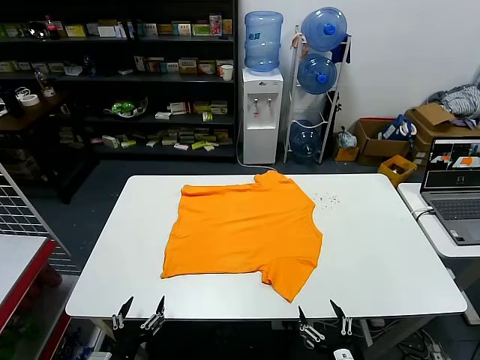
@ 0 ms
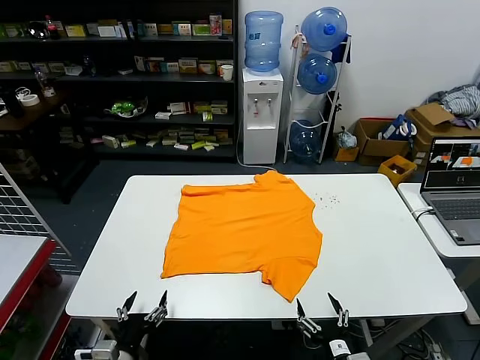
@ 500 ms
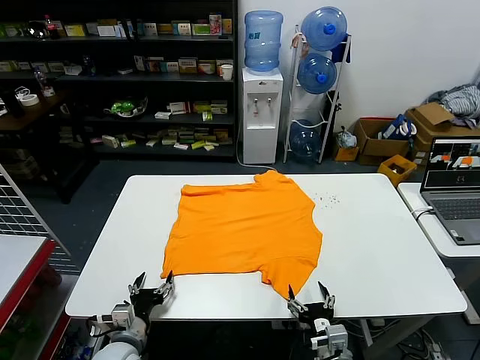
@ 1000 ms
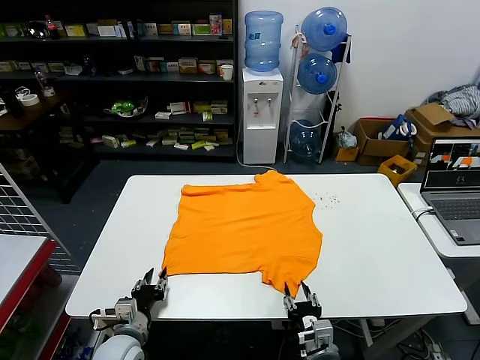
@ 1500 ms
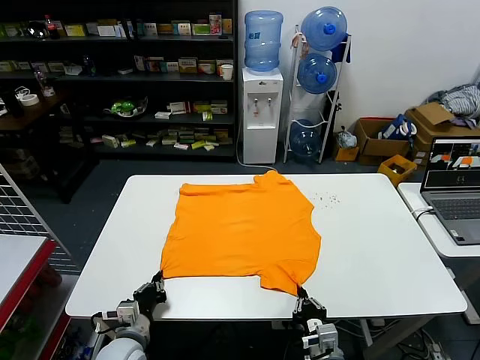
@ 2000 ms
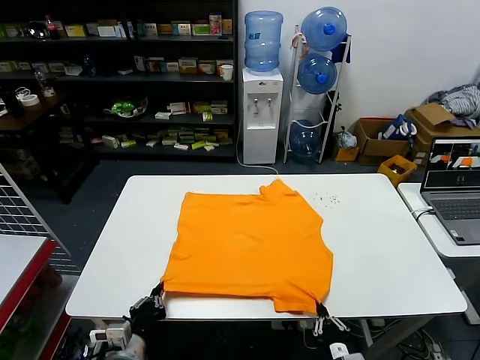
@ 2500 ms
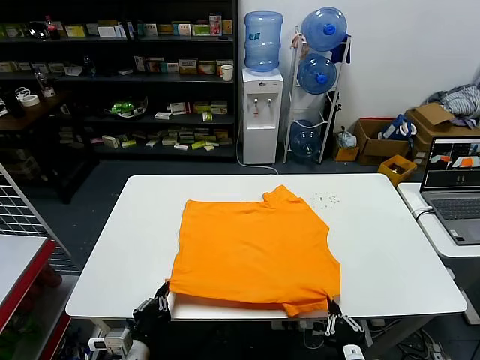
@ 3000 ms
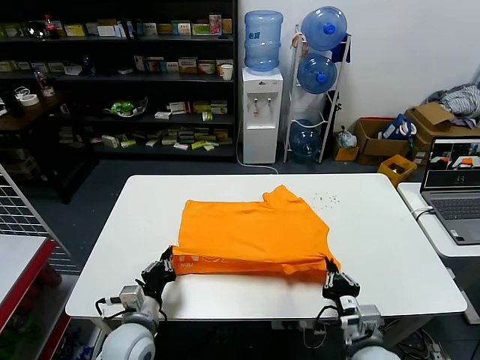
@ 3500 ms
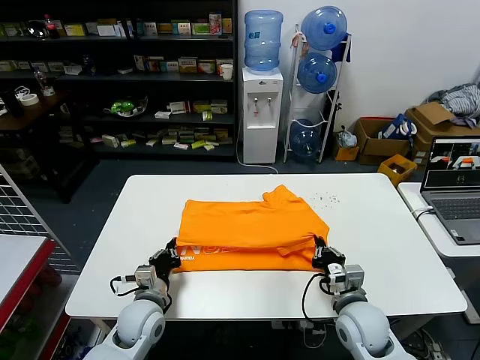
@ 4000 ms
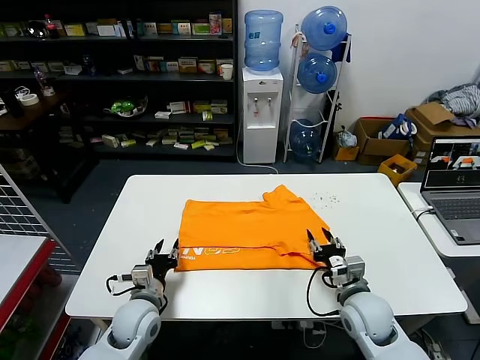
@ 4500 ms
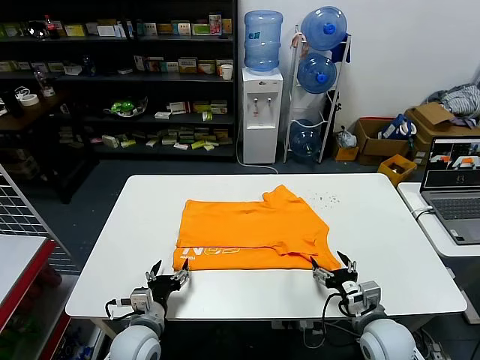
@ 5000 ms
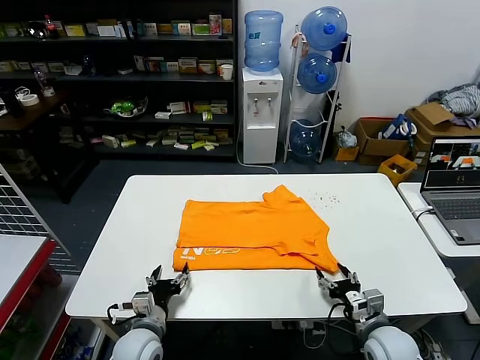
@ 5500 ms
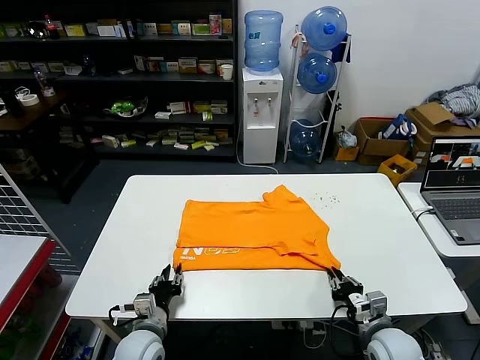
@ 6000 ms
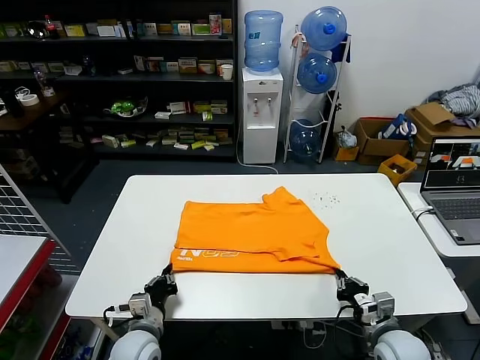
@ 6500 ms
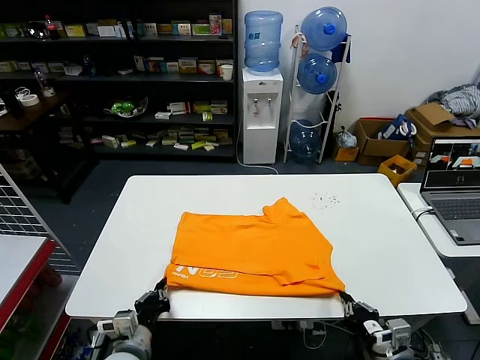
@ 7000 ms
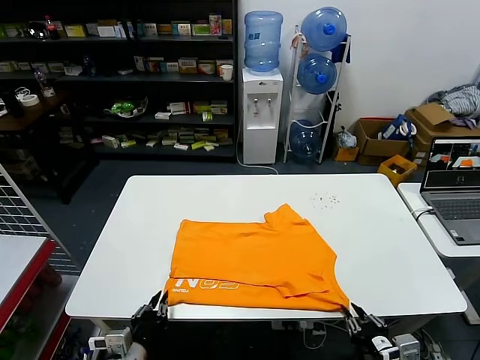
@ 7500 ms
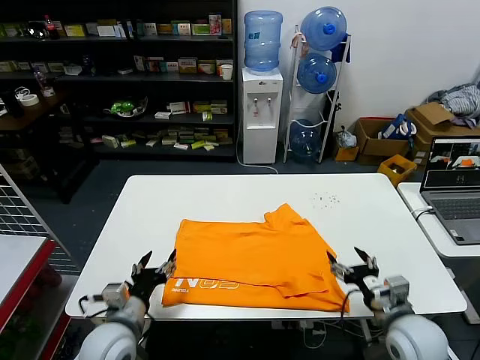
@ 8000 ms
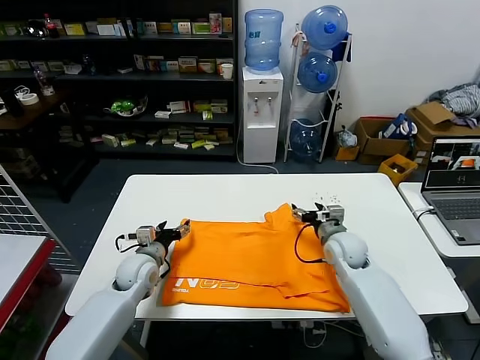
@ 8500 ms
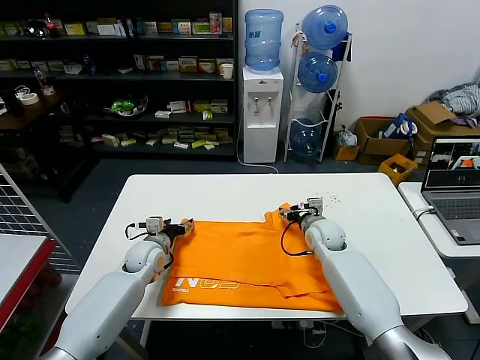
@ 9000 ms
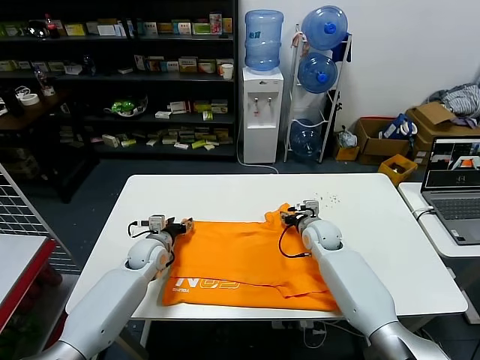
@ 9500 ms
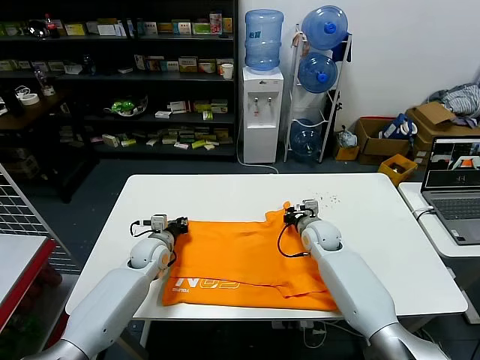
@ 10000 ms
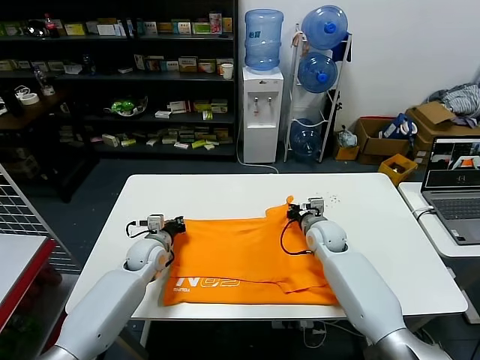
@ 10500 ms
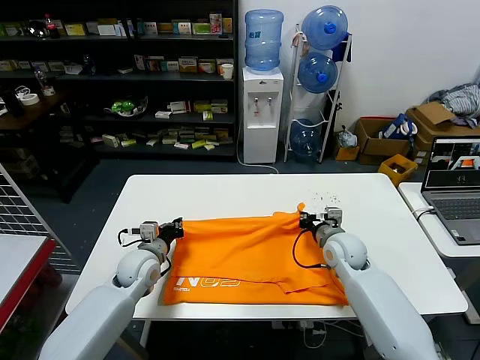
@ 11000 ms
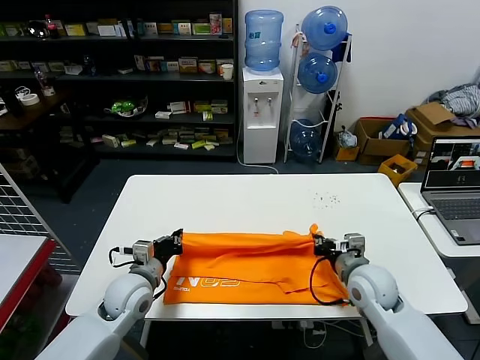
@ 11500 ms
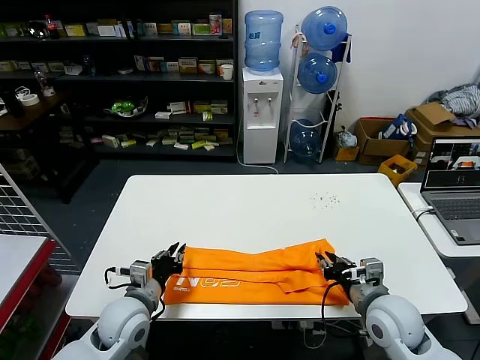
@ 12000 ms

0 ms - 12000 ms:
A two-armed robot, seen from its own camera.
Task of the whole recording: fold and organize the clothes.
Step, 0 ms - 2500 ms: use both grippers simultaneously to clamp the lower edge of the clothing fabric.
Step, 3000 ms - 4000 ms: use both grippers to drag the lower edge of the fabric forward and fold it over the upper edge.
Step, 4500 ms - 7500 ms: Drag the clothes downward with both gripper.
Step, 8000 ms - 10000 ms: use both grippers simultaneously to clamp the upper edge of the clothing fabric.
Step, 10500 ms - 12000 ms: use both grippers to drag the upper edge of the fabric backward and fold it over the lower edge.
2000 ms - 4000 ms: The right gripper moves forward, upward and to the right, about 15 cm, while the left gripper shifts roughly 5 cm forward.
4000 ms - 6000 ms: The left gripper moves backward, roughly 5 cm, and opens its fingers, while the right gripper goes roughly 10 cm to the right and downward, and opens, then closes once more.
6000 ms - 8000 ms: Both grippers travel together upward, roughly 10 cm. The right gripper travels backward and back again, approximately 10 cm each way, and opens up. The left gripper reaches some 10 cm backward, then returns, and opens up.
8000 ms - 10000 ms: The right gripper moves forward and to the left, some 25 cm, and closes, while the left gripper heads forward, covering some 25 cm, and closes its fingers.
10000 ms - 12000 ms: The two grippers go approximately 20 cm backward.

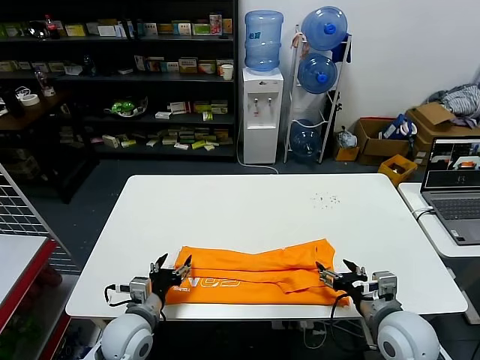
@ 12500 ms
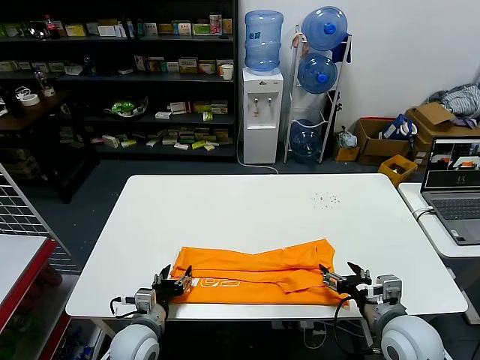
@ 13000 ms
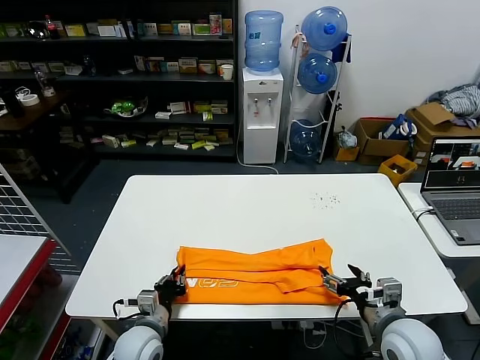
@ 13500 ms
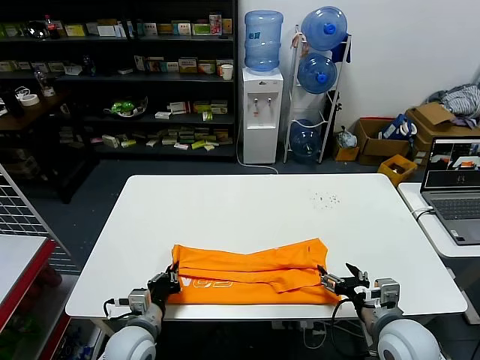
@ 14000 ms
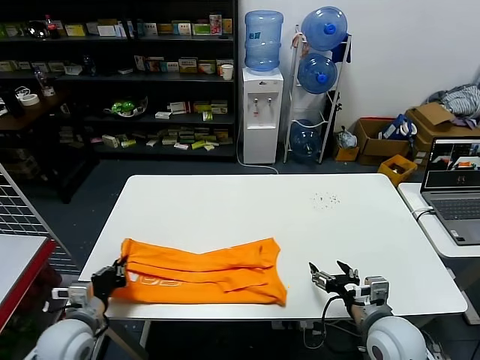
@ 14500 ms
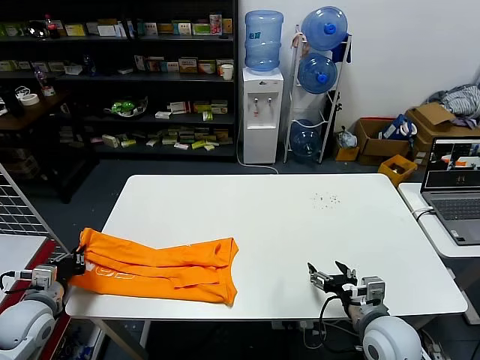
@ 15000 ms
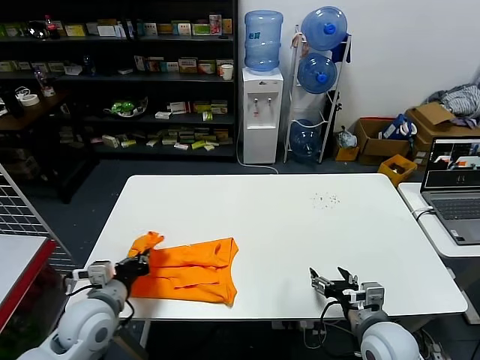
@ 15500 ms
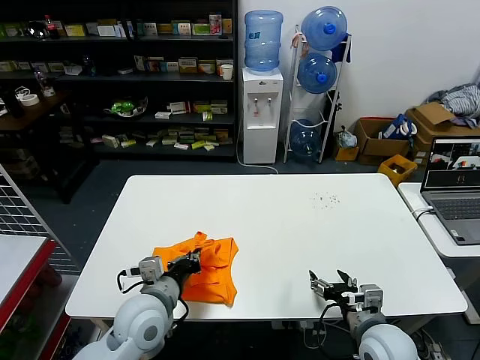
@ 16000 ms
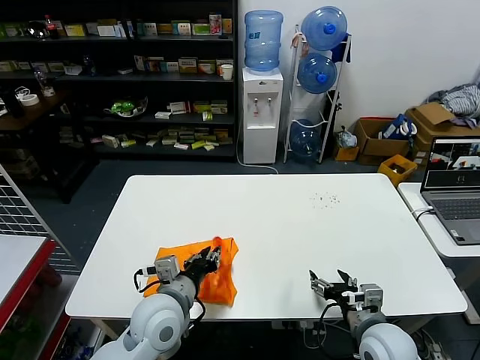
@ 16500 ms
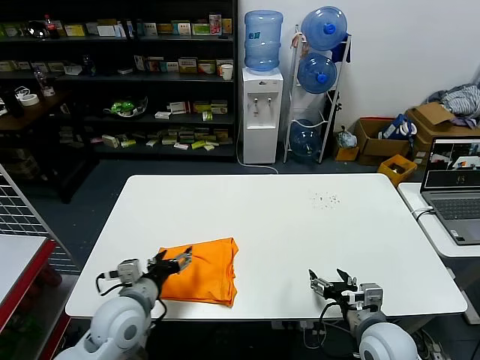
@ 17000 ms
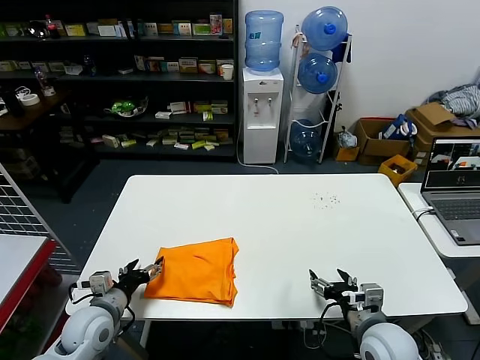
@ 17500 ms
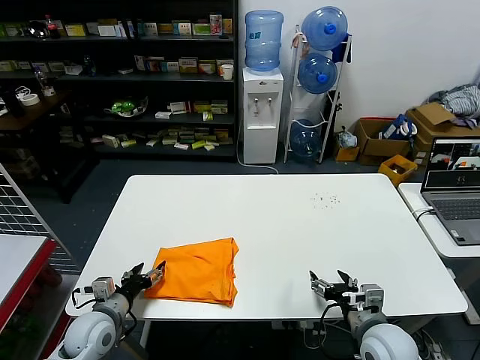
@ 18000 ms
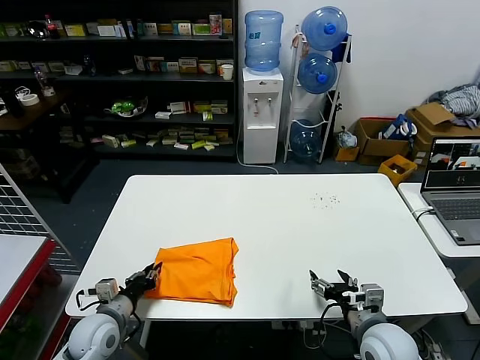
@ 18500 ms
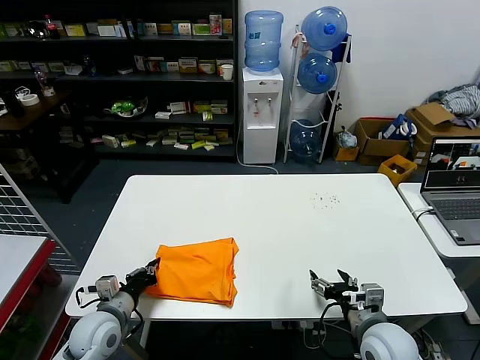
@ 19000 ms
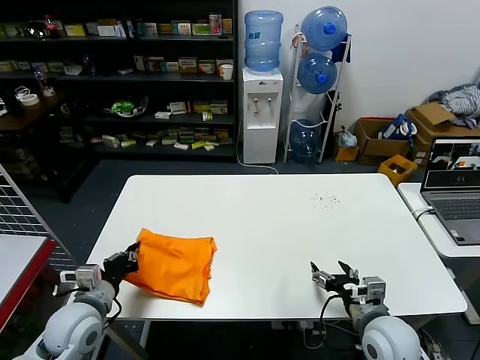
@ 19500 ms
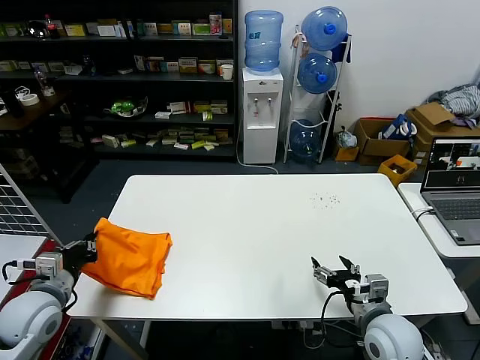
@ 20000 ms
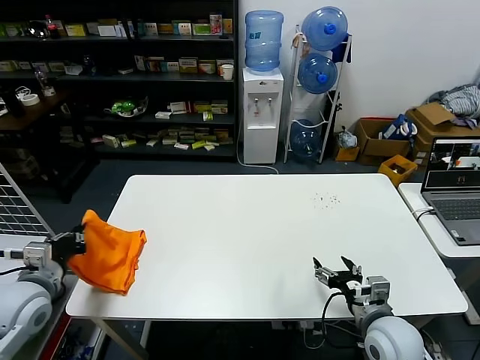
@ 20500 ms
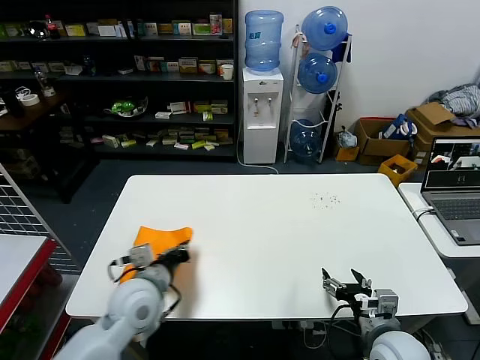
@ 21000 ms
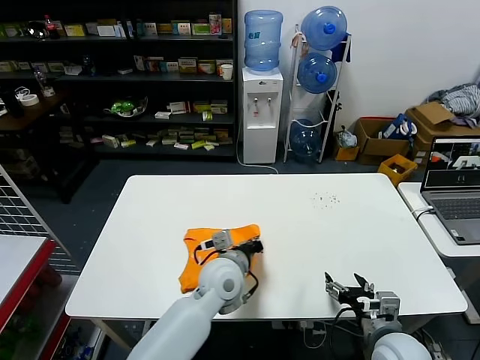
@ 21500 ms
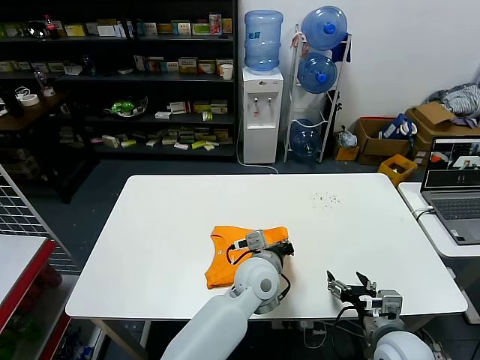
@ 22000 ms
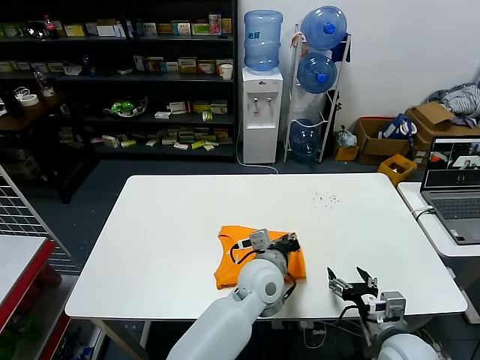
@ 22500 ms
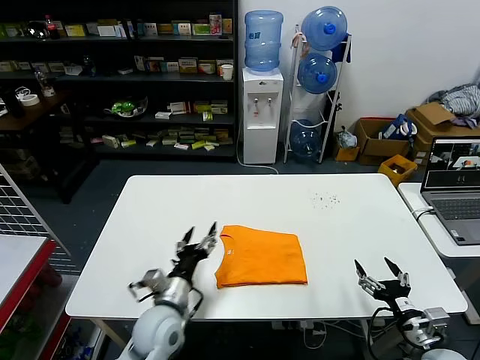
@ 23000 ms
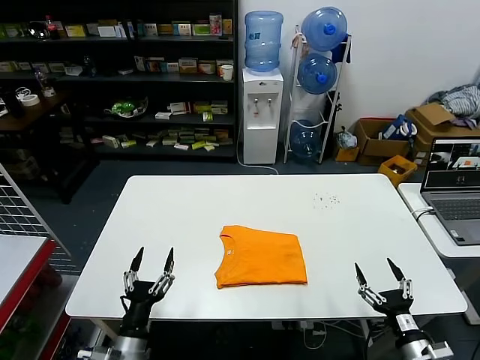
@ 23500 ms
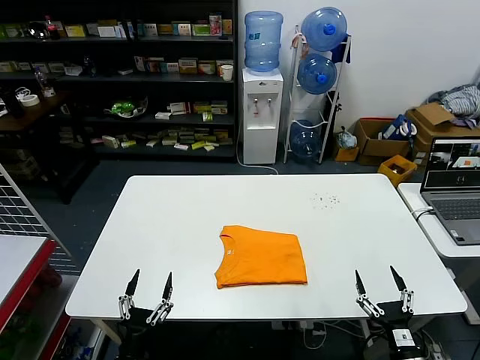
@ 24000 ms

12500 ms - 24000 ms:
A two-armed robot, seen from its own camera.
Task of the whole recording: fold and organize the clothes.
Step, 12500 ms - 13500 ms: use the left gripper to clamp the left edge of the fabric.
Step, 14000 ms - 16500 ms: use the left gripper to drag the left edge of the fabric to the left and folds it over the right edge.
Step, 17000 ms - 22500 ms: Flip the folded clothes over with left gripper.
12500 ms - 14500 ms: The left gripper heads to the left, covering some 10 cm, and closes up.
14500 ms - 16500 ms: The left gripper goes roughly 20 cm to the right.
16500 ms - 18500 ms: The left gripper shifts some 20 cm to the left and downward, and opens, then closes once more.
18500 ms - 20000 ms: The left gripper is displaced upward and to the left by roughly 15 cm.
20000 ms - 22000 ms: The left gripper goes roughly 40 cm to the right.
22000 ms - 24000 ms: The right gripper travels backward, downward and to the right by some 15 cm. The left gripper travels to the left, backward and downward by roughly 40 cm, and opens.

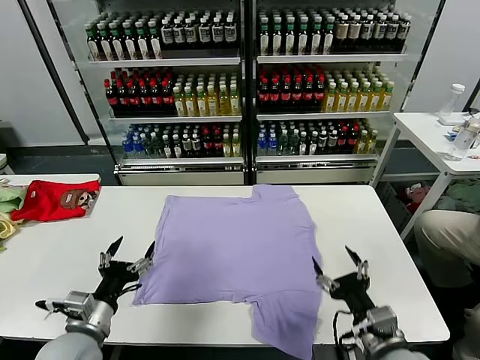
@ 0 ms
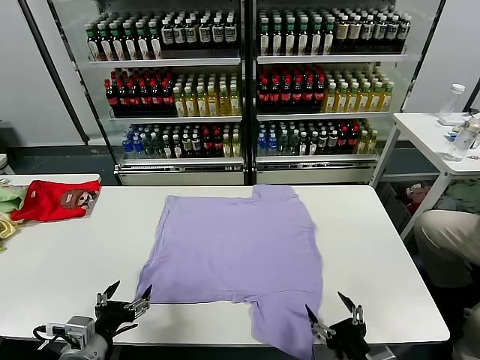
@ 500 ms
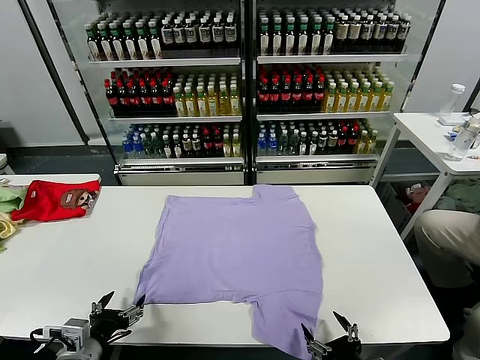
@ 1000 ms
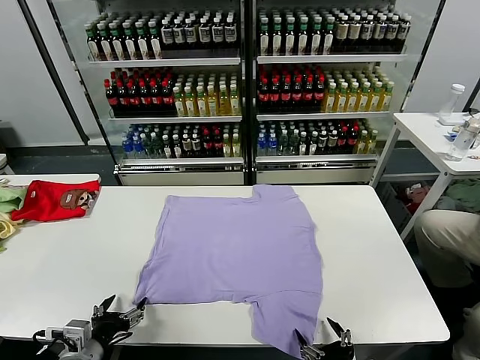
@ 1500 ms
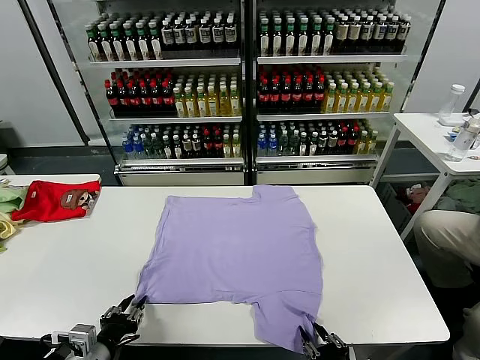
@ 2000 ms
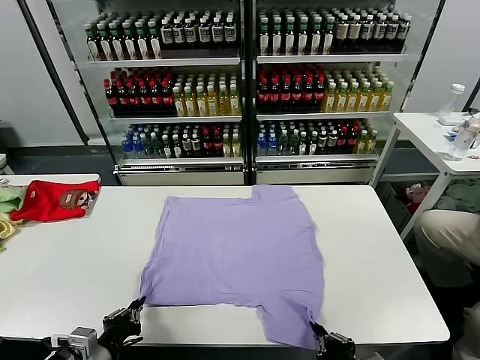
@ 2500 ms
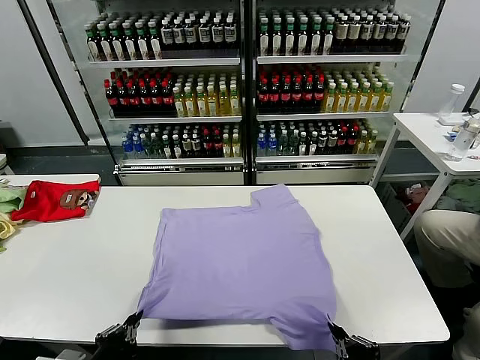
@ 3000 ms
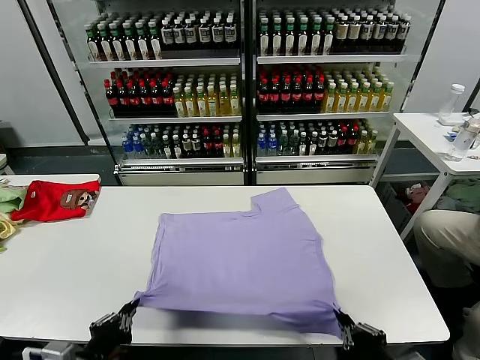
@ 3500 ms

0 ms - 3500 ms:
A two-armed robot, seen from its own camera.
Task of the whole recording: fold and organize the clothes.
Step, 0 ms - 2000 ms: use both grippers simultaneously to clamp the lower edge of the clothing fabric.
2000 ms - 3500 ms: The grippers both shift upward by approximately 5 cm. The left gripper closes up.
